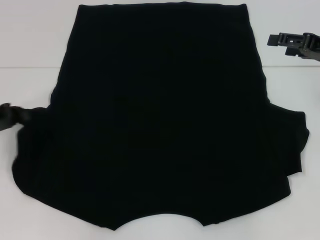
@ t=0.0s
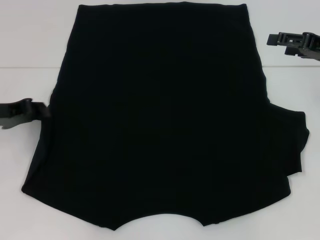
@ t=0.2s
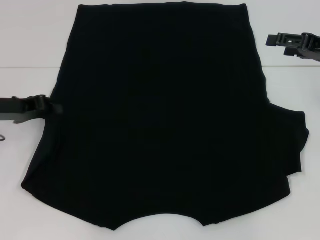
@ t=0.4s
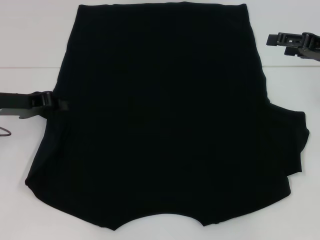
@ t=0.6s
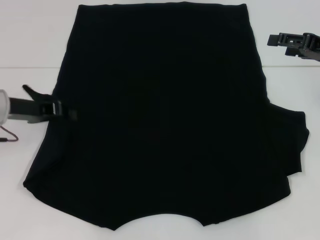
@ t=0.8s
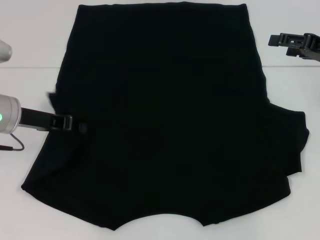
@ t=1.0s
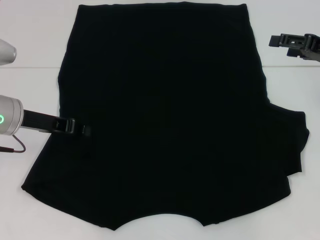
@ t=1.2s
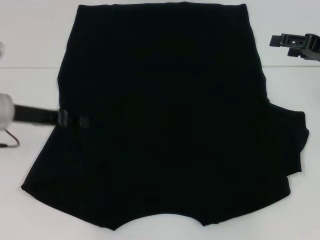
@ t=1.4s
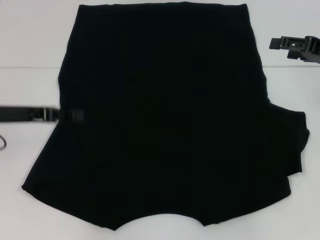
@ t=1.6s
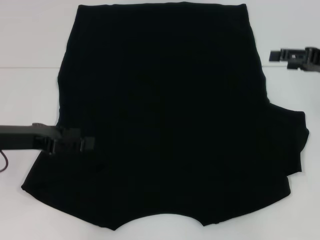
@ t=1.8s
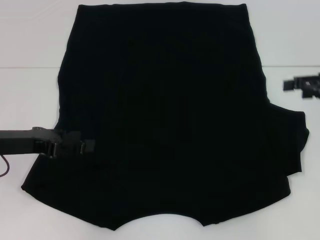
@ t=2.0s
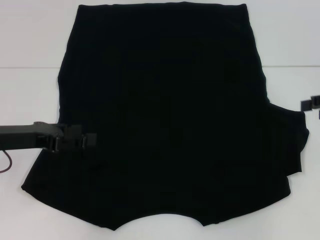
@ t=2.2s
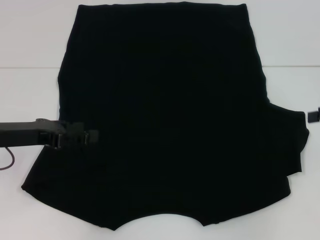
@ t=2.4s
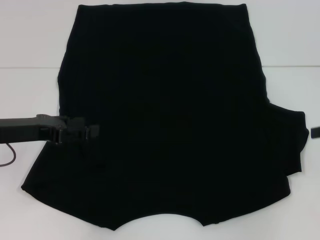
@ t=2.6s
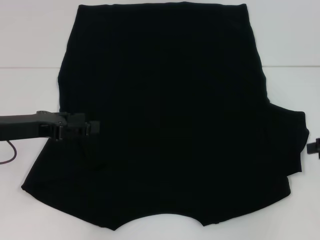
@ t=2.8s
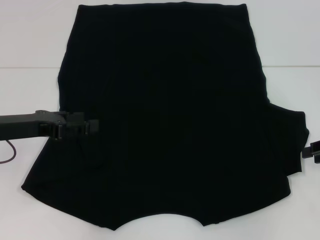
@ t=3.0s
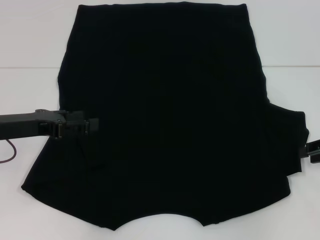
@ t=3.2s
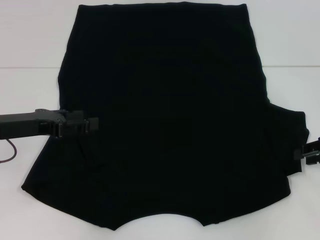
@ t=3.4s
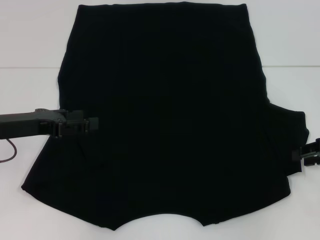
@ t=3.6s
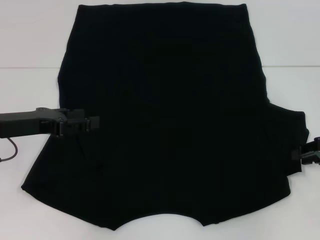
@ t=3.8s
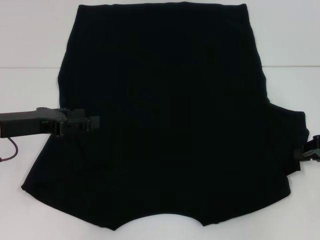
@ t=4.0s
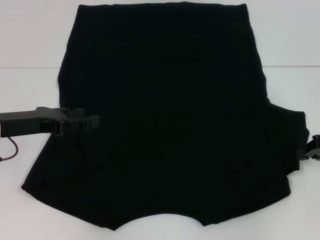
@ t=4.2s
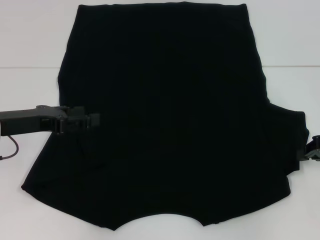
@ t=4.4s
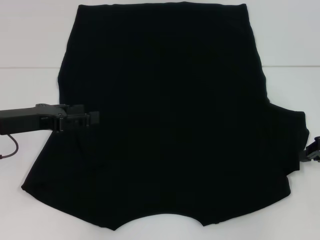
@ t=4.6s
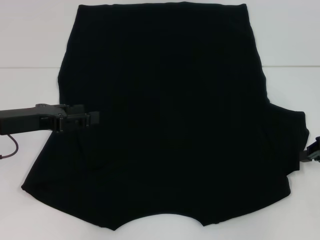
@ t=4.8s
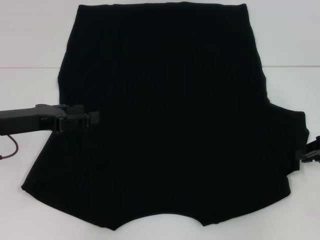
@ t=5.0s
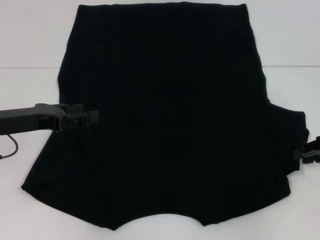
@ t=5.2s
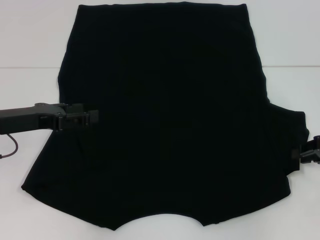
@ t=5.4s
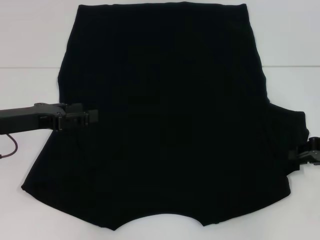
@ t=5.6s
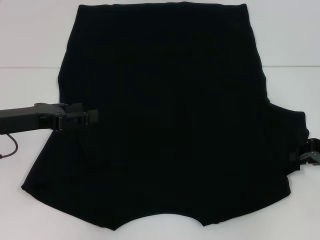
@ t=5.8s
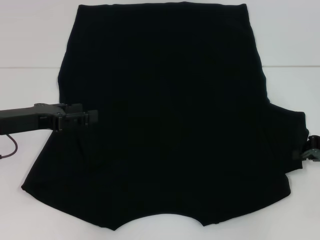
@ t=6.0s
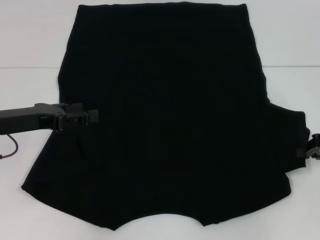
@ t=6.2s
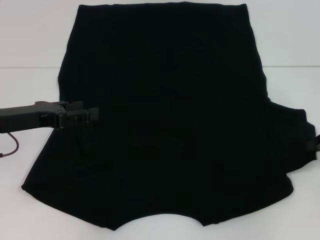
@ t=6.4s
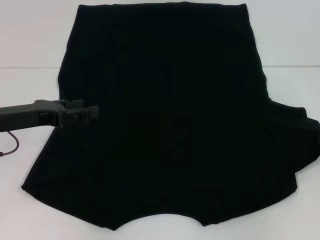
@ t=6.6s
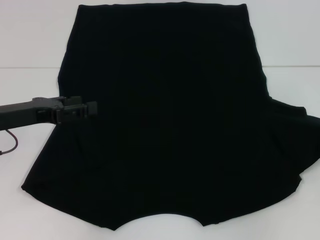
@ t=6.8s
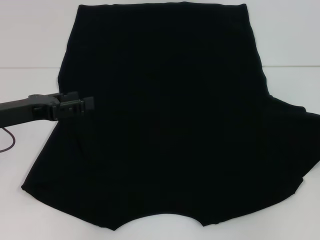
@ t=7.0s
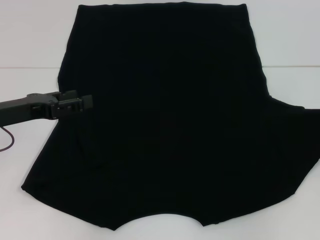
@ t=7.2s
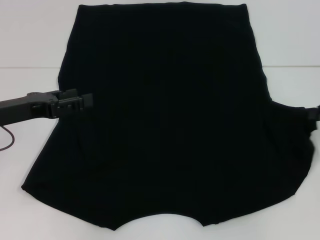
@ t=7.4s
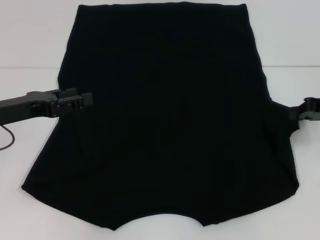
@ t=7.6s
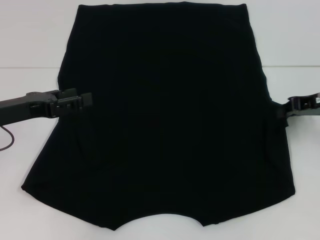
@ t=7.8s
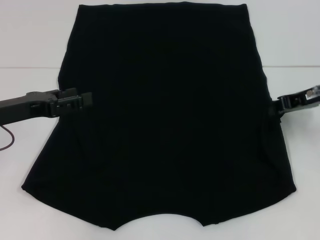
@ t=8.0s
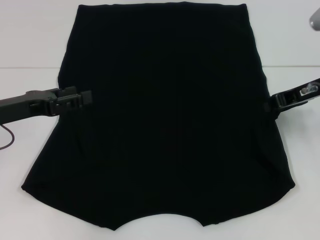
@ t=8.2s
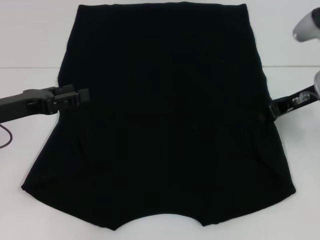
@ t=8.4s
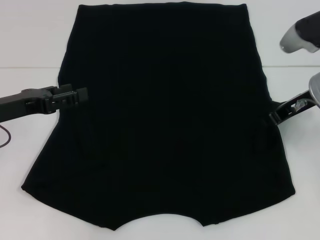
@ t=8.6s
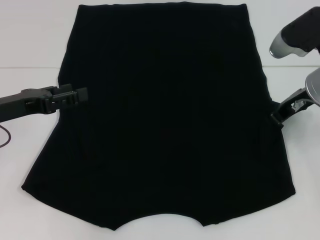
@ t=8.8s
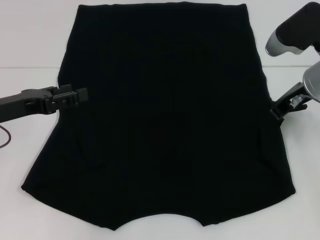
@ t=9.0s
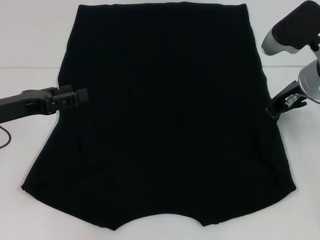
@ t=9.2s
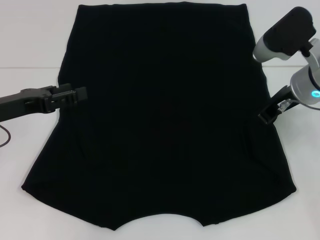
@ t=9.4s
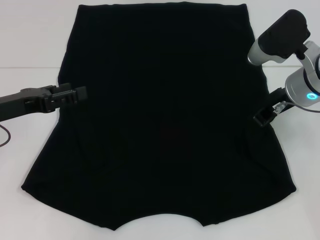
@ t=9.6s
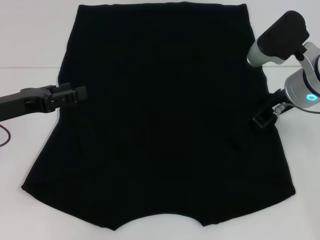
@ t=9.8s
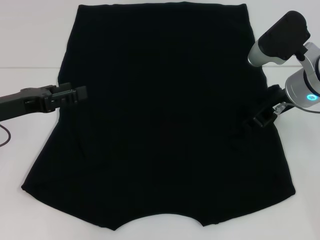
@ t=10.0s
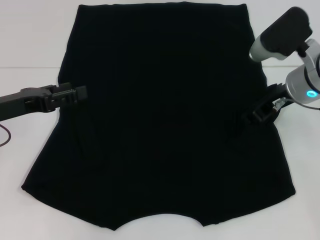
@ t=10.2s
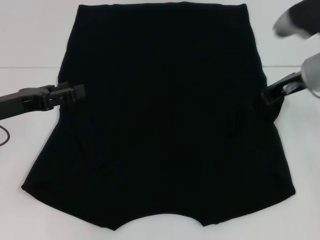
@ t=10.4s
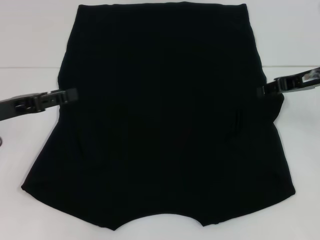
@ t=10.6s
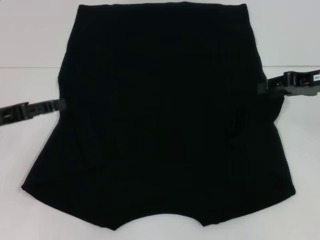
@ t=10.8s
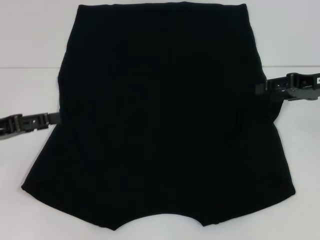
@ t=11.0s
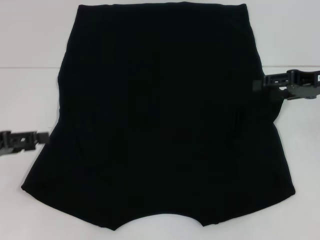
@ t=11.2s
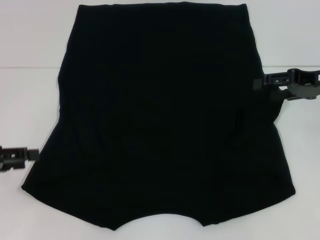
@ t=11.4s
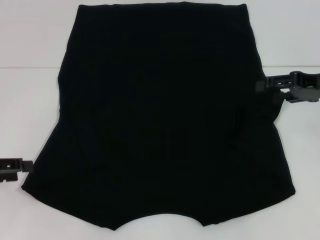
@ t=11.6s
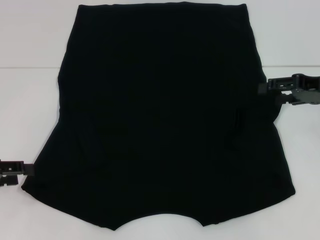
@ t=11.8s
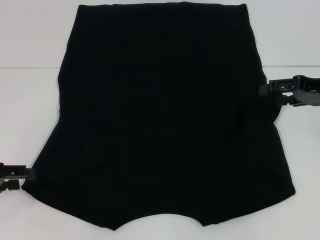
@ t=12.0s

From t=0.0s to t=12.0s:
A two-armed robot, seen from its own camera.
Step, from t=1.4s to t=11.0s: Fold the bottom right sleeve with your right hand.
From t=0.0s to t=1.6s: The left gripper shifts roughly 5 cm to the right.
From t=1.6s to t=3.0s: The right gripper heads backward and downward, covering approximately 10 cm, and closes its fingers; the left gripper opens up.
From t=4.4s to t=6.0s: Both grippers stay about where they are.
From t=6.0s to t=7.6s: The right gripper ends up about 5 cm from where it was.
From t=7.6s to t=9.0s: The right gripper shifts some 10 cm to the left.
From t=9.0s to t=10.4s: The right gripper opens its fingers.
From t=10.4s to t=12.0s: The right gripper moves to the right, about 10 cm, and opens, while the left gripper shifts some 10 cm to the left and backward.

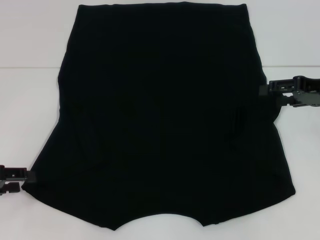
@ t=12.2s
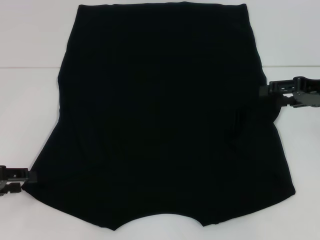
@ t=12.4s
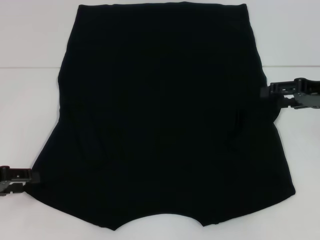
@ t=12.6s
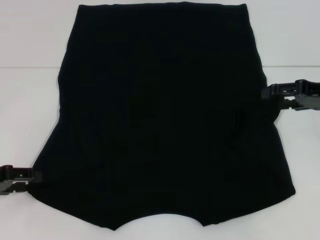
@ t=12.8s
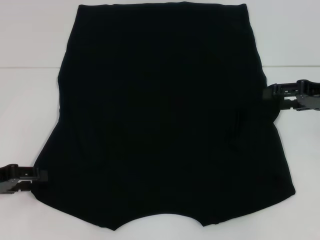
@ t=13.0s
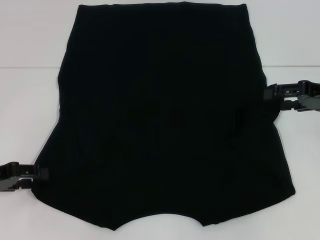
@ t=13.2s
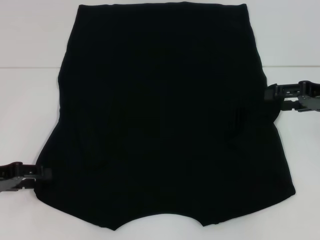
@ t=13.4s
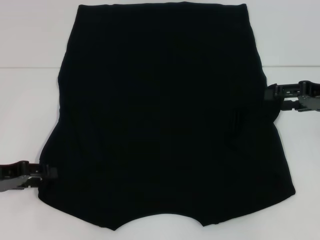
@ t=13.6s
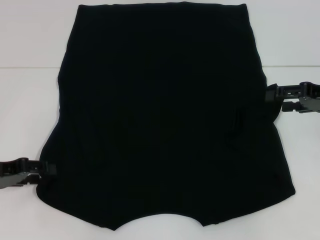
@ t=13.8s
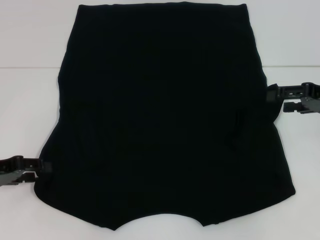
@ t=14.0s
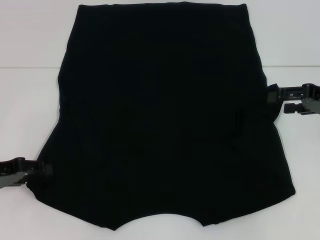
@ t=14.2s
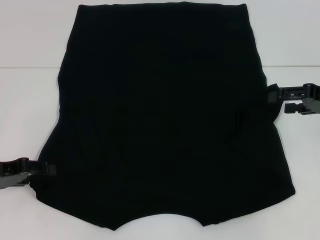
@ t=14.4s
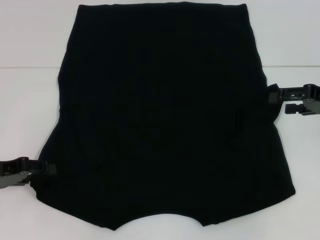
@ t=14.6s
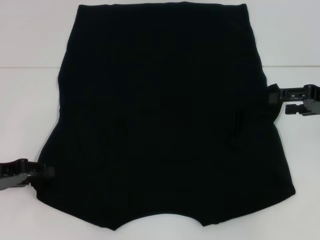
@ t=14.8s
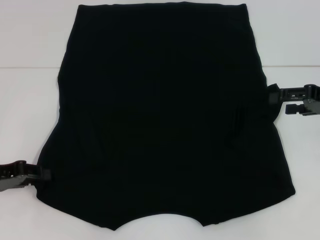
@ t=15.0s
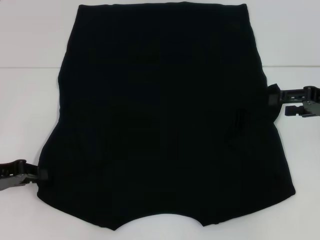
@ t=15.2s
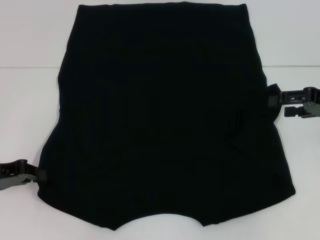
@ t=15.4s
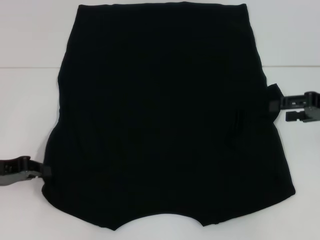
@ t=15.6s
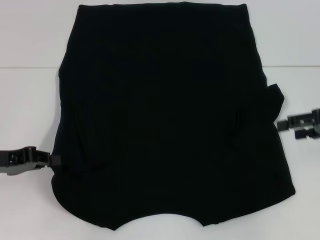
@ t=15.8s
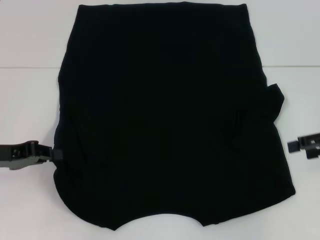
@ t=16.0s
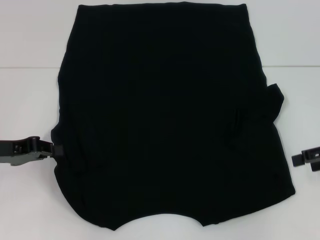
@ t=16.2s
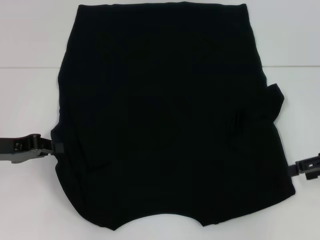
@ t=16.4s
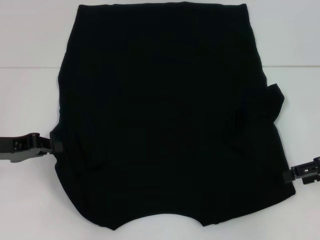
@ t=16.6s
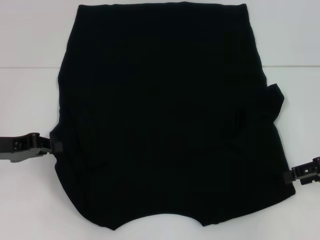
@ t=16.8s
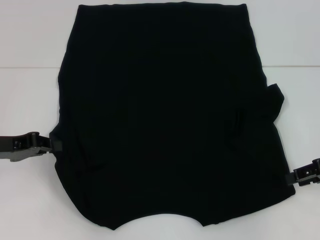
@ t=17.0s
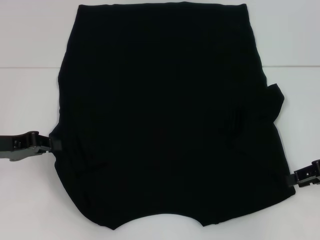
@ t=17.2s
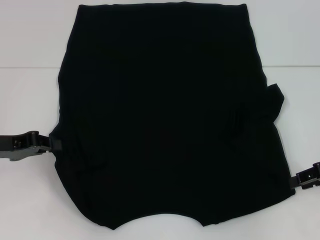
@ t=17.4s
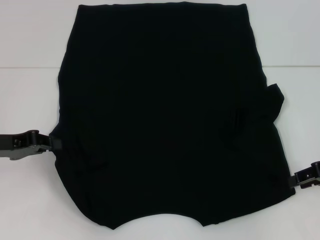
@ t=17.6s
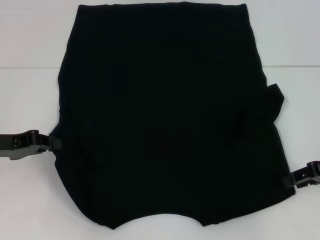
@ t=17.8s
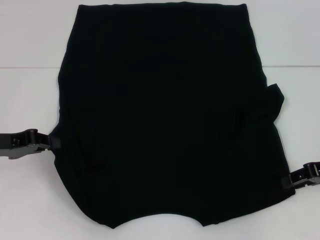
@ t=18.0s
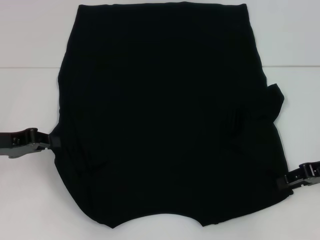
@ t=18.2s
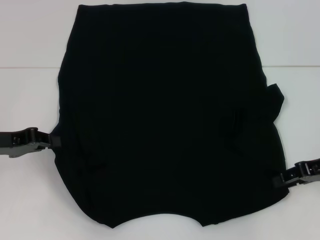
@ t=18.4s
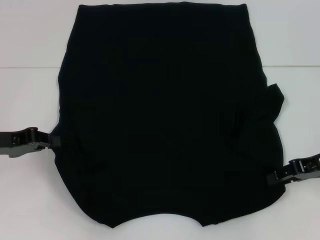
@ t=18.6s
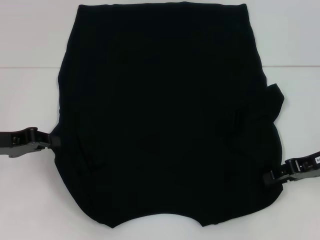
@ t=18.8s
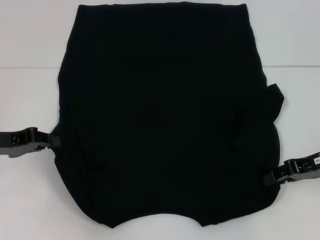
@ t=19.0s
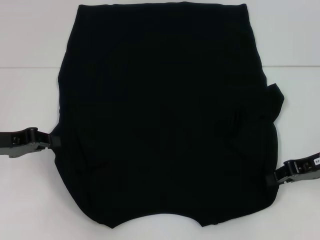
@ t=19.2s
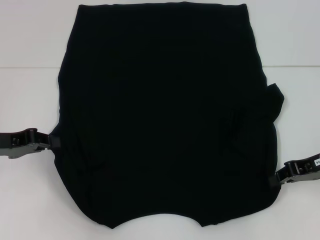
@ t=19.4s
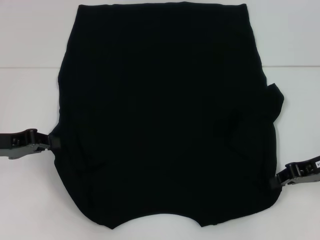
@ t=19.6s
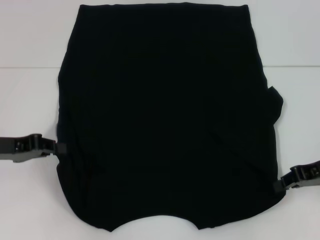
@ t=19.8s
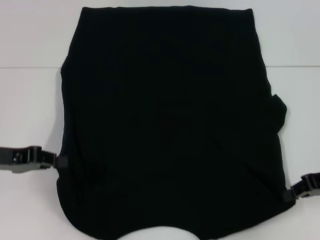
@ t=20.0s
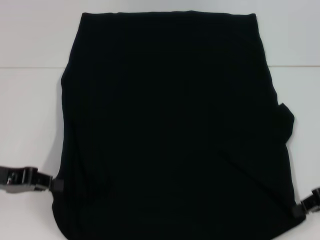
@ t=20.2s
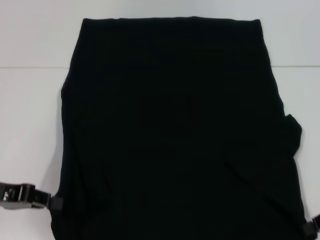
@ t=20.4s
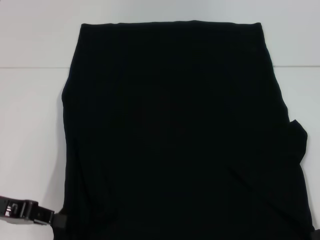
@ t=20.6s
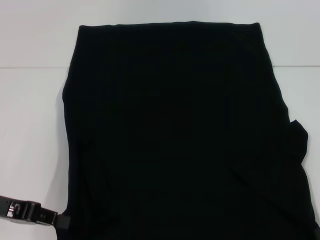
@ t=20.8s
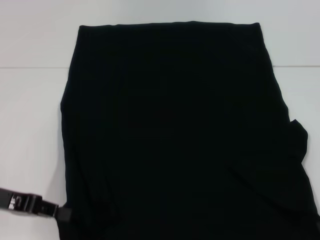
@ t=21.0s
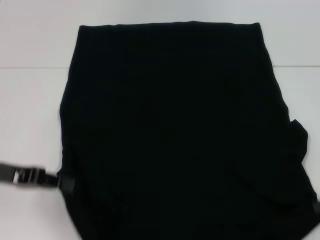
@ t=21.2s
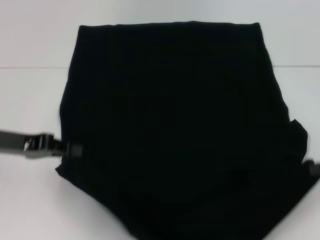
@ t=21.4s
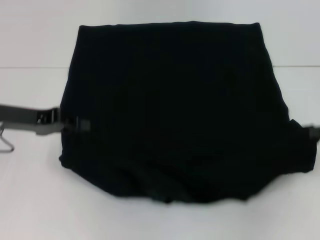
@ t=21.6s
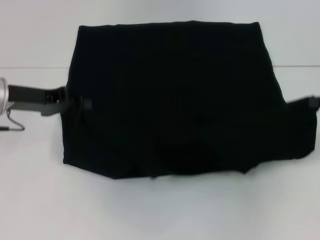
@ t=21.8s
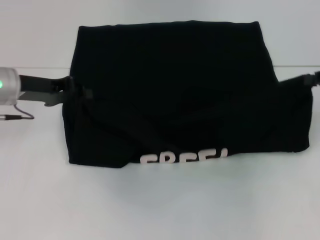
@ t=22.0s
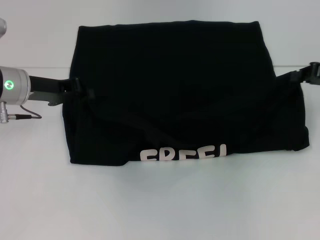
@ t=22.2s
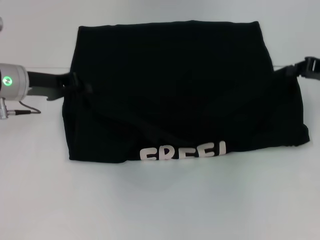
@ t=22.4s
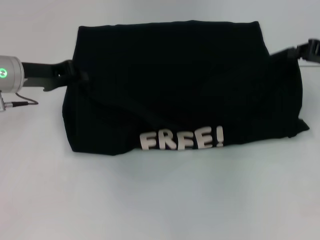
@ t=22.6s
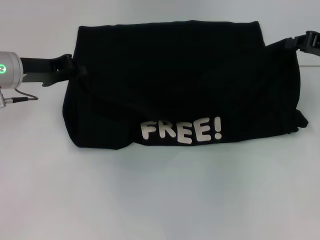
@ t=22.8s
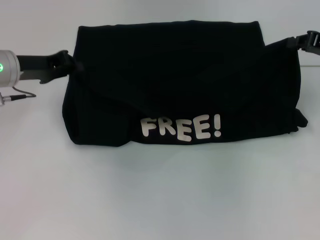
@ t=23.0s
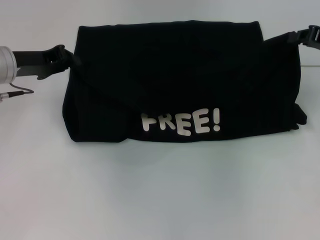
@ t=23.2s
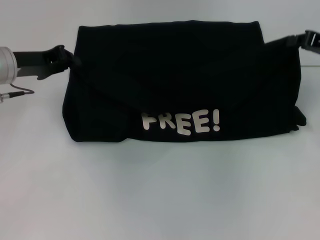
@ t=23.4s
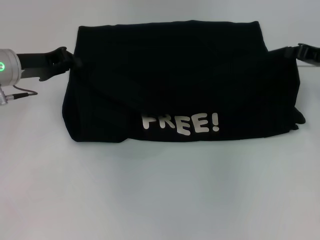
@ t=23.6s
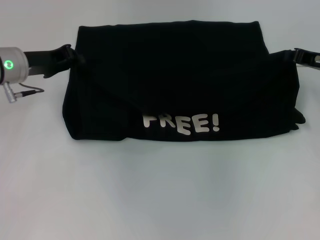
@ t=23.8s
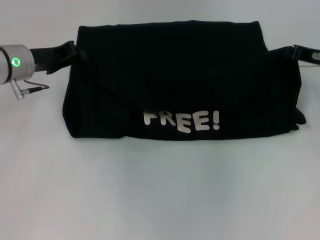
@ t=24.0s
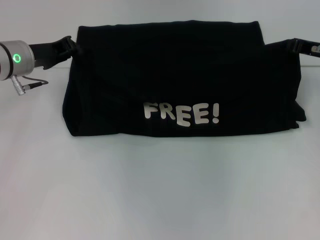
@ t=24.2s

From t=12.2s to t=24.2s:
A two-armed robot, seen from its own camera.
Step, from t=12.2s to t=15.6s: Grab the bottom left corner with your left hand.
Step, from t=15.8s to t=19.8s: Grab the bottom right corner with your right hand.
From t=12.2s to t=13.8s: The grippers stay close to where they were, moving slightly.
From t=15.2s to t=16.6s: The right gripper shifts by roughly 5 cm.
From t=16.6s to t=18.2s: The right gripper closes its fingers.
From t=18.2s to t=19.8s: The right gripper closes its fingers.
From t=19.8s to t=21.2s: The right gripper goes roughly 10 cm to the right and backward.
From t=21.2s to t=22.6s: The two grippers go approximately 15 cm forward.
From t=22.6s to t=24.2s: The right gripper changes place by approximately 5 cm.
